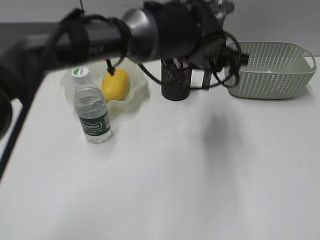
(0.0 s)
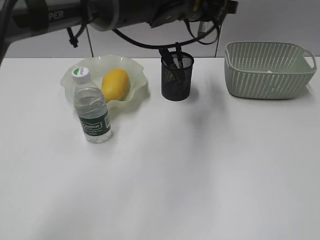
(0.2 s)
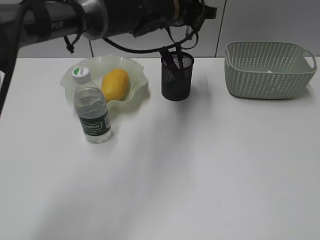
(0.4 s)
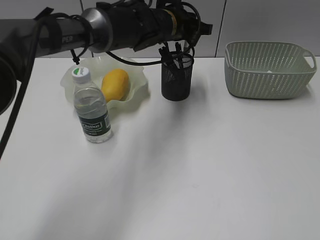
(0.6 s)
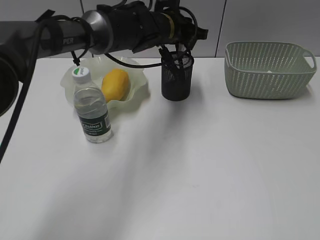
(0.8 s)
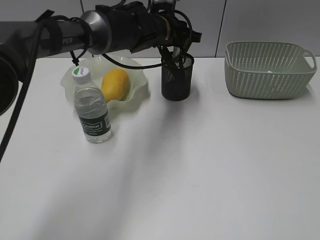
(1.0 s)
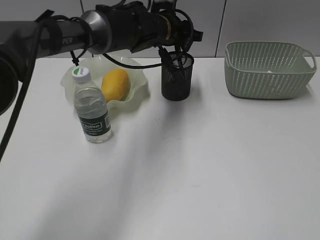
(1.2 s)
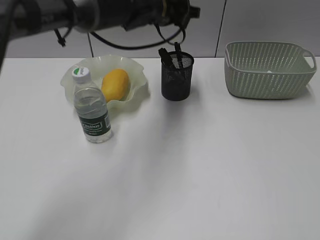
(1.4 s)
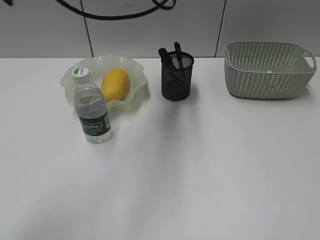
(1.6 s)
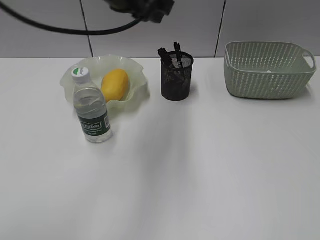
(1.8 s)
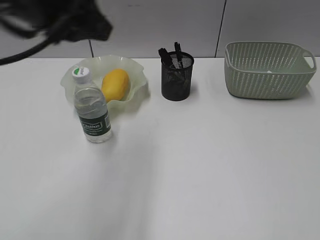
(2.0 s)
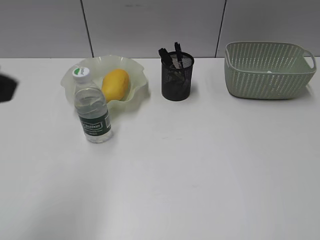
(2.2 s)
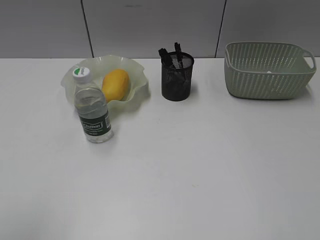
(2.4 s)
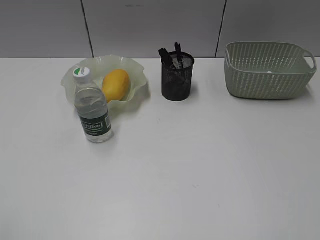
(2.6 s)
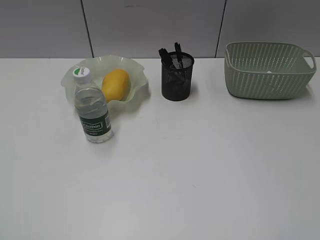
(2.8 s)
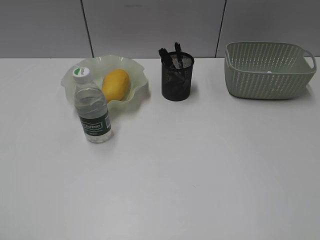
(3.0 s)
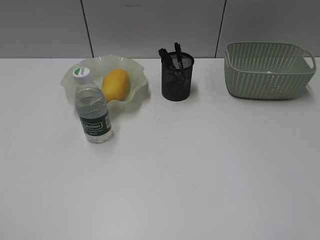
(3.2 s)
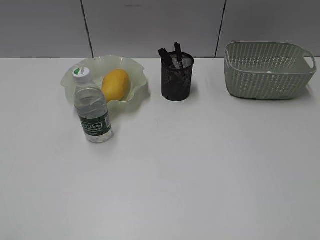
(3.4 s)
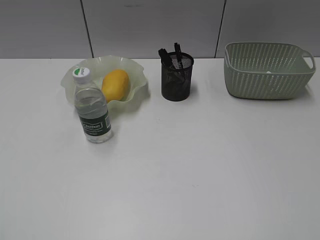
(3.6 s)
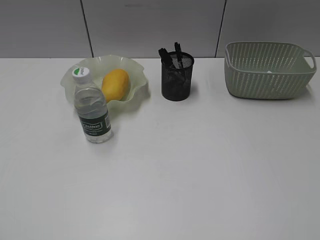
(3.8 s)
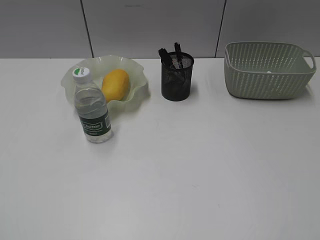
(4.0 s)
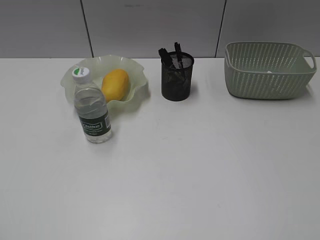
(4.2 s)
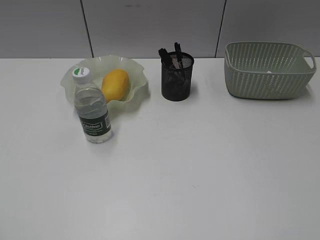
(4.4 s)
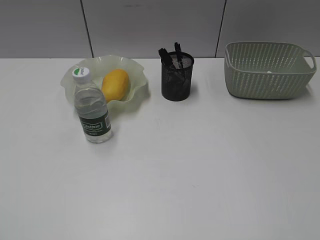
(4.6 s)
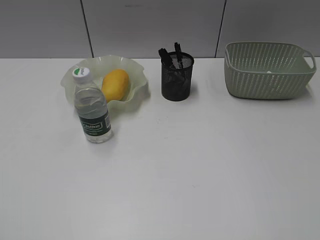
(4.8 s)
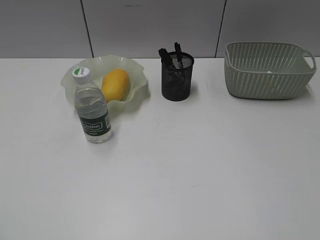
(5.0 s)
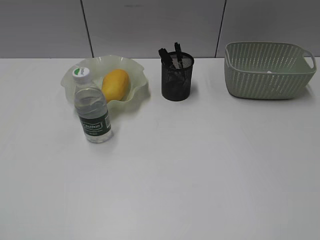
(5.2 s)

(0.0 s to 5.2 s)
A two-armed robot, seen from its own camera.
Step, 0.0 s - 1.2 s: Place the eraser in pen holder with left gripper.
0.0 s - 1.8 s: The left gripper travels to the left and upward by roughly 20 cm.
1.8 s - 3.4 s: The left gripper travels backward and to the left by roughly 40 cm.

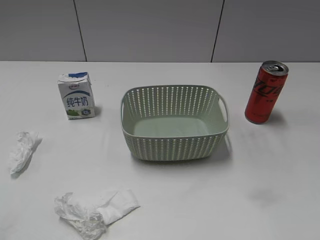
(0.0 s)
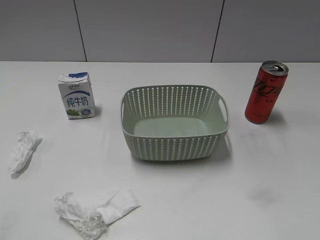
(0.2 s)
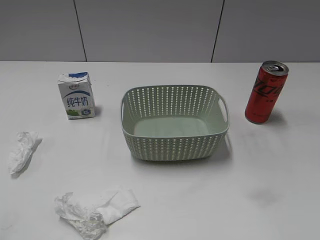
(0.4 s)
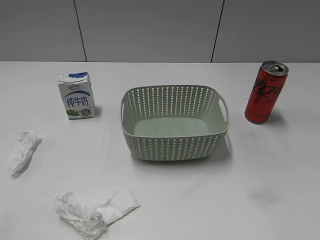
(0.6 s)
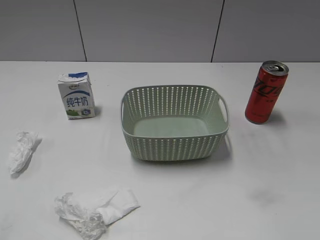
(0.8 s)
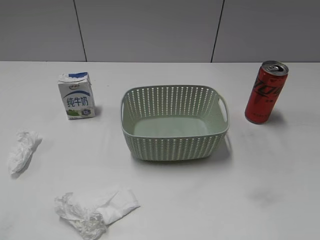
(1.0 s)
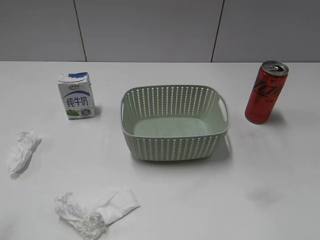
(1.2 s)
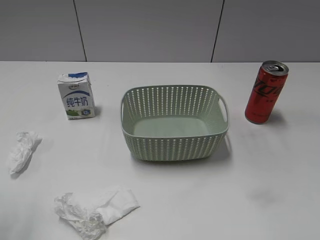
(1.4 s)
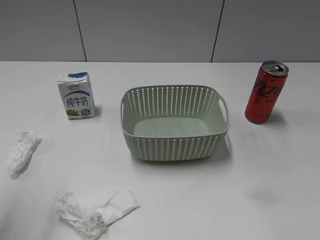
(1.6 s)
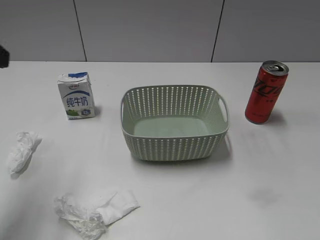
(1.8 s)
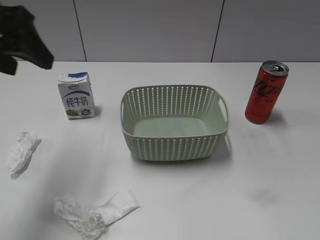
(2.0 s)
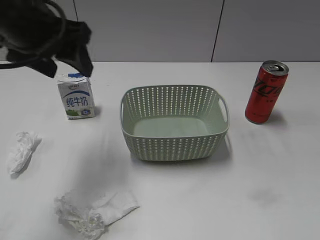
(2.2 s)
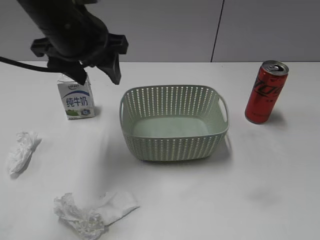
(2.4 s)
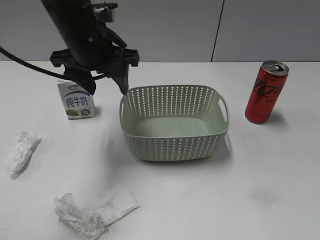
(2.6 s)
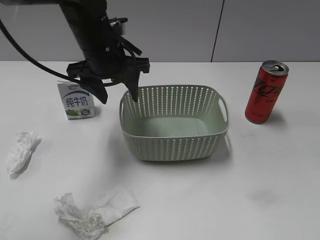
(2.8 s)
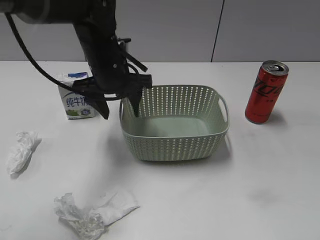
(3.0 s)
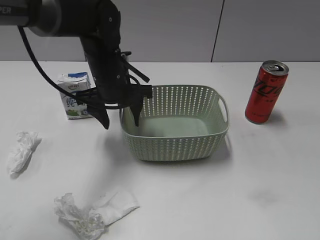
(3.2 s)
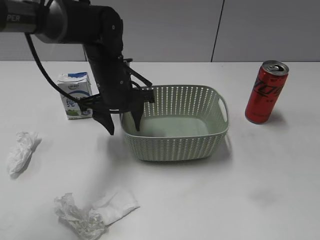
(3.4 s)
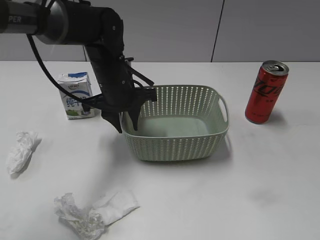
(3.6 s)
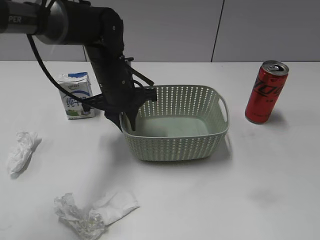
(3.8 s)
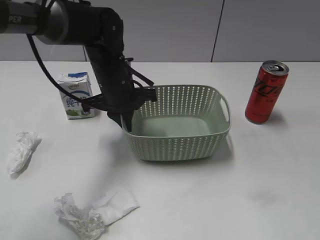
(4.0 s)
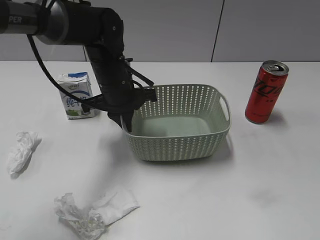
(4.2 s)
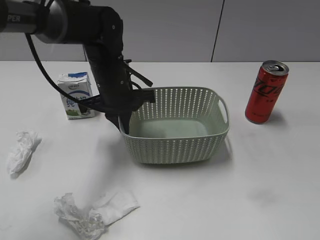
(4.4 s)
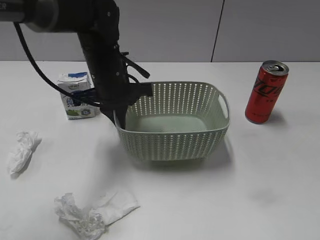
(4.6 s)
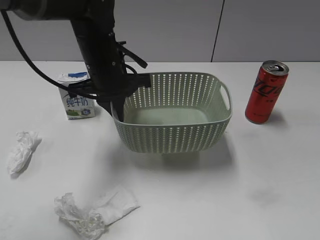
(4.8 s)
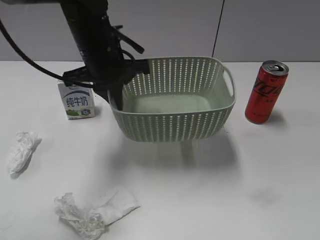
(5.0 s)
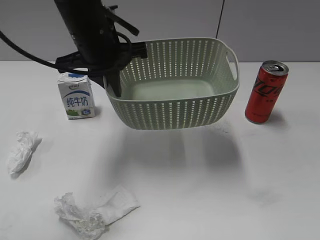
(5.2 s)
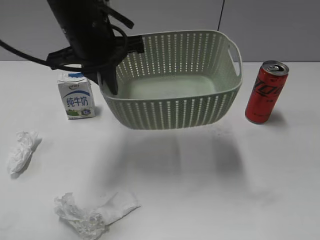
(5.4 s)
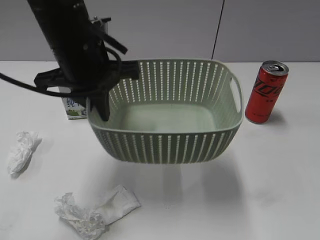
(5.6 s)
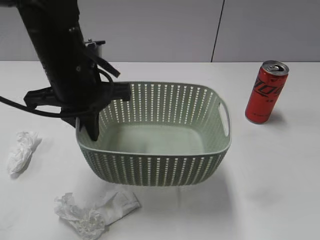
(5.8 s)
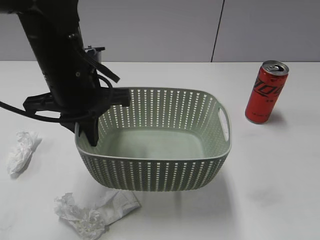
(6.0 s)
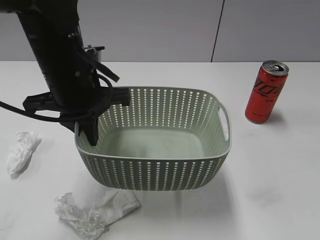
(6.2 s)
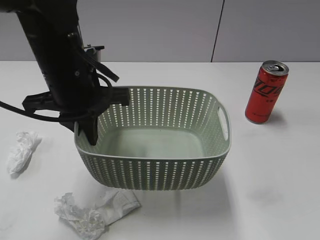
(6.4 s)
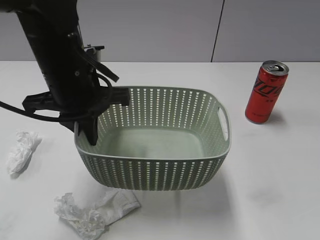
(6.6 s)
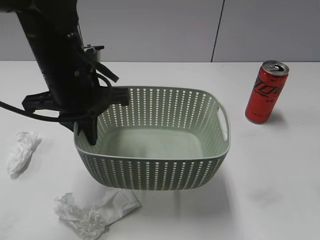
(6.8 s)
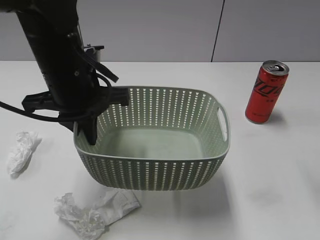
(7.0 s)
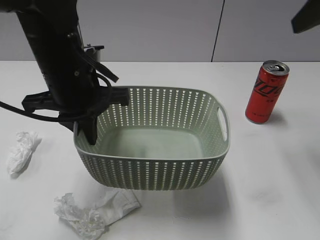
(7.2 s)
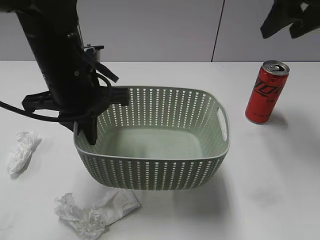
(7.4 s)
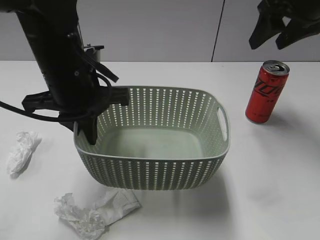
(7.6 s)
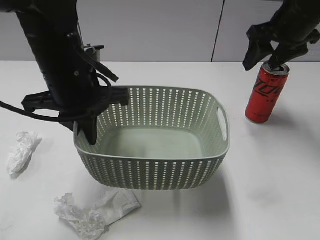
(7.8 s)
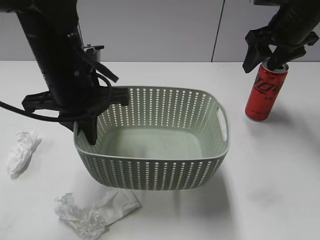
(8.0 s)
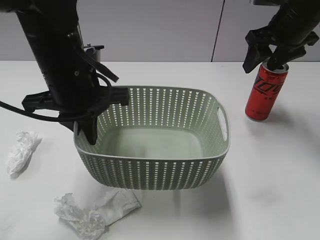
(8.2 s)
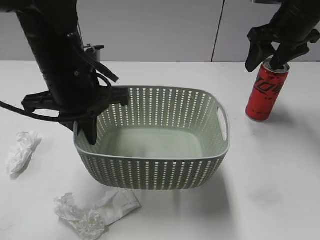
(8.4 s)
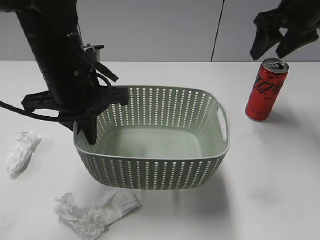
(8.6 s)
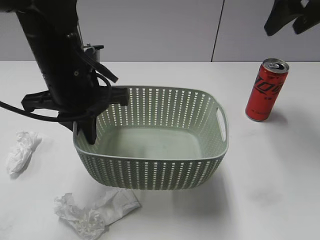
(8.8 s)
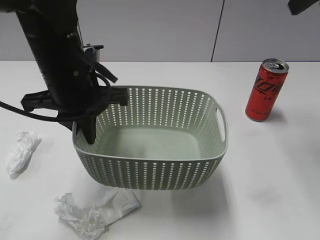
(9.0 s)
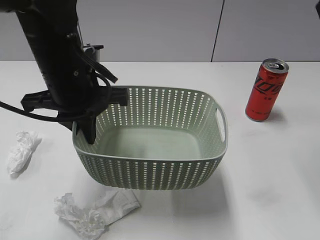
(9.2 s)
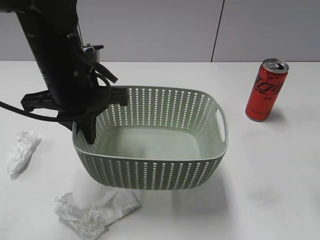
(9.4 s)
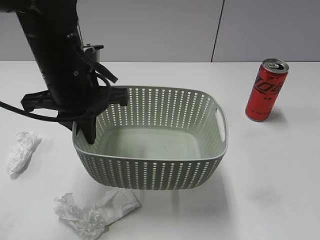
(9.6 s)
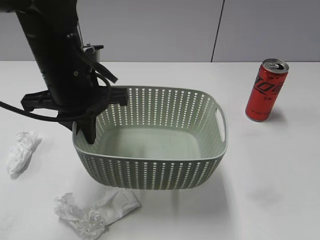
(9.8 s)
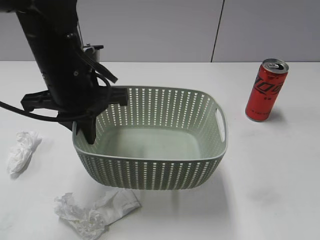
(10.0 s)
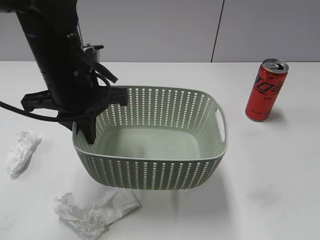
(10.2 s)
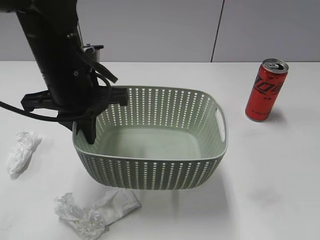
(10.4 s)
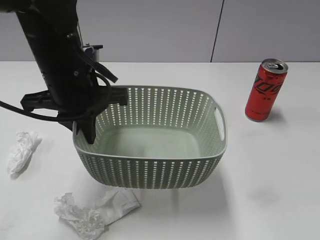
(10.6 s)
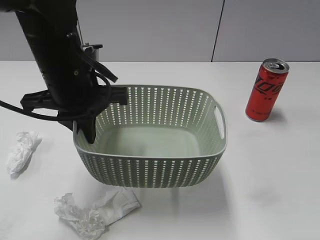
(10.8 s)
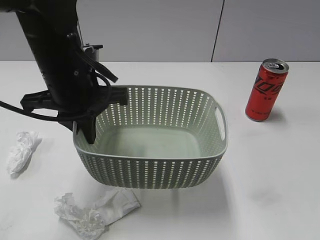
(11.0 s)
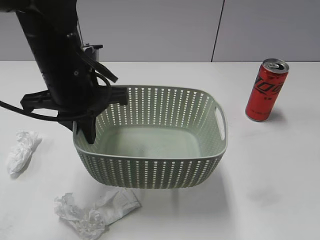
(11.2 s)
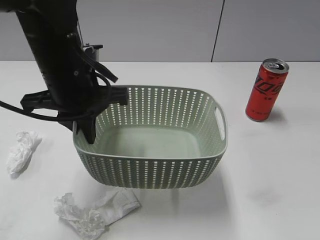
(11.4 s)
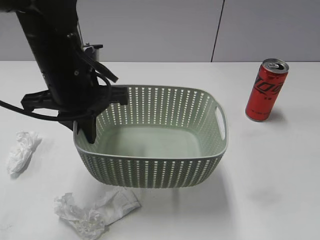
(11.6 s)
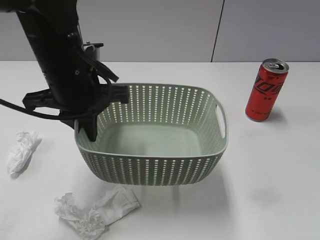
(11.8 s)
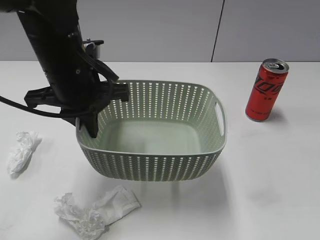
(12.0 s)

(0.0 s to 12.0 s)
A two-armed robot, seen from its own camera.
Step, 1.8 s - 4.0 s: Grasp the basket with left gripper.
Step, 4.2 s - 6.8 s: Lift the basket with left gripper.
1.6 s - 3.0 s: The left gripper goes roughly 30 cm forward, to the right and downward.
3.0 s - 4.4 s: The left gripper closes up.
4.4 s - 6.0 s: The left gripper heads backward and upward, covering approximately 15 cm.
6.0 s - 7.6 s: The right gripper shifts some 40 cm forward, and closes.
7.6 s - 9.0 s: The right gripper goes approximately 10 cm upward and backward.
9.0 s - 10.4 s: The right gripper heads backward, covering about 30 cm.
10.4 s - 12.0 s: The right gripper is displaced forward and upward by roughly 5 cm, and opens up.

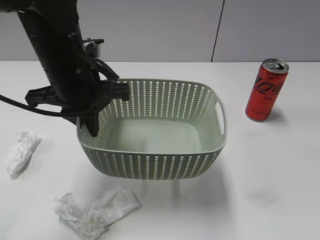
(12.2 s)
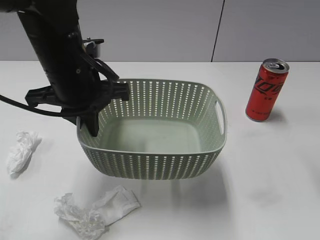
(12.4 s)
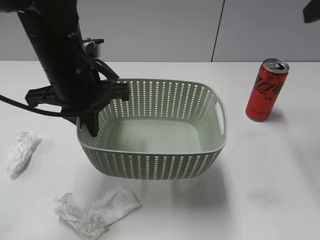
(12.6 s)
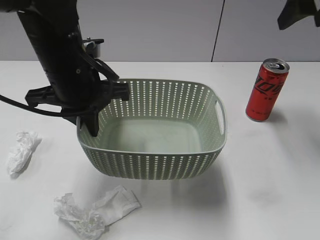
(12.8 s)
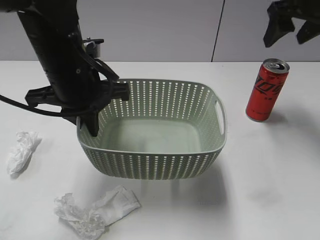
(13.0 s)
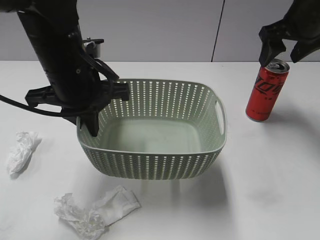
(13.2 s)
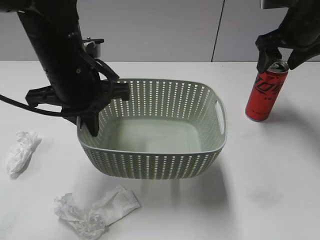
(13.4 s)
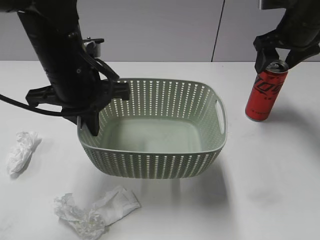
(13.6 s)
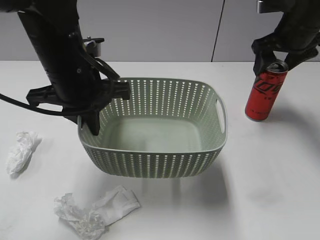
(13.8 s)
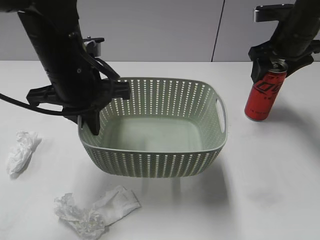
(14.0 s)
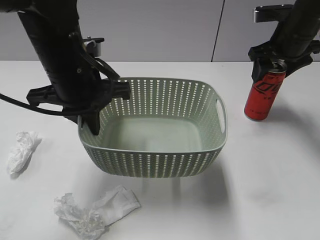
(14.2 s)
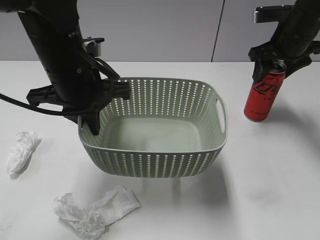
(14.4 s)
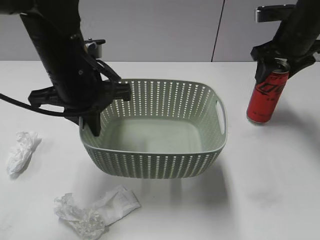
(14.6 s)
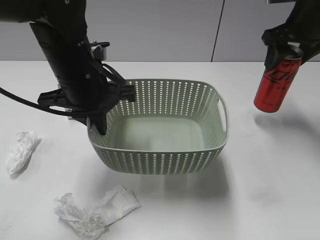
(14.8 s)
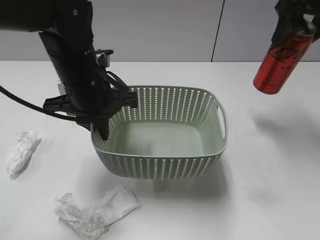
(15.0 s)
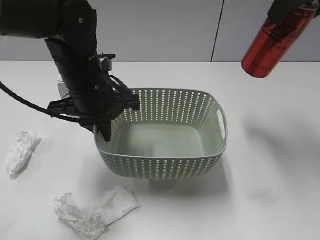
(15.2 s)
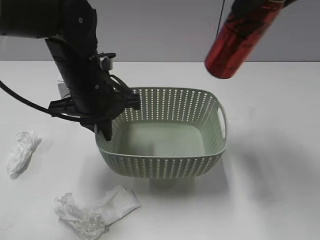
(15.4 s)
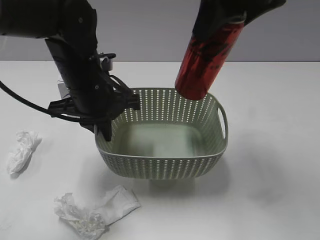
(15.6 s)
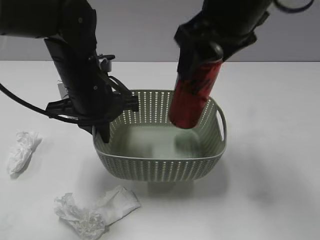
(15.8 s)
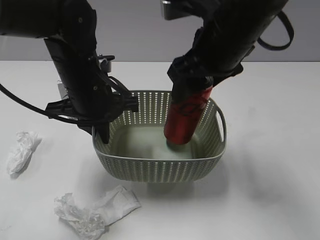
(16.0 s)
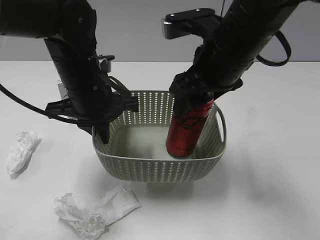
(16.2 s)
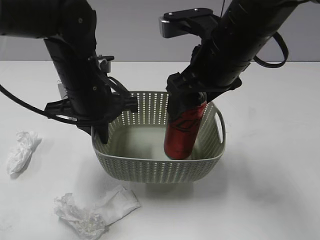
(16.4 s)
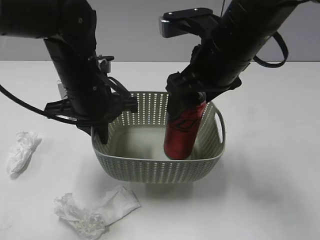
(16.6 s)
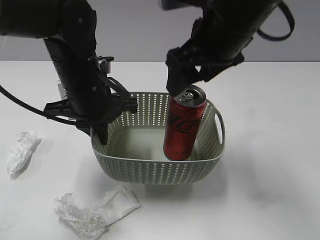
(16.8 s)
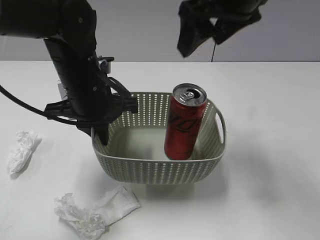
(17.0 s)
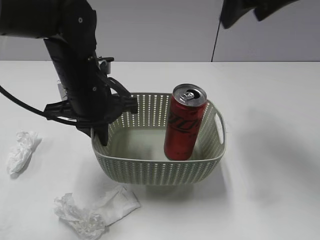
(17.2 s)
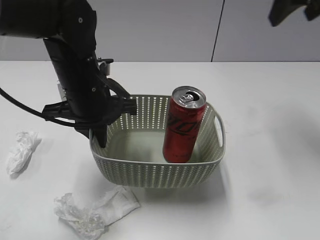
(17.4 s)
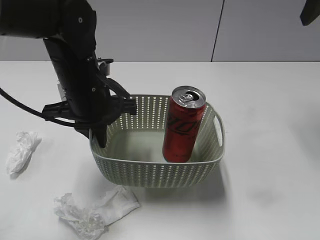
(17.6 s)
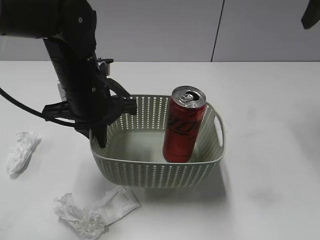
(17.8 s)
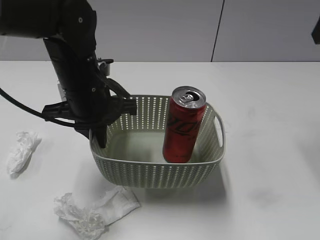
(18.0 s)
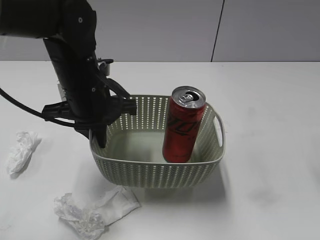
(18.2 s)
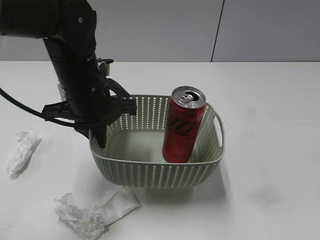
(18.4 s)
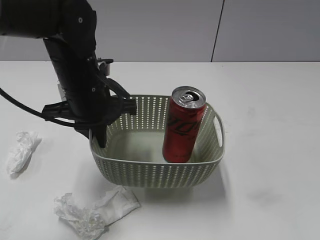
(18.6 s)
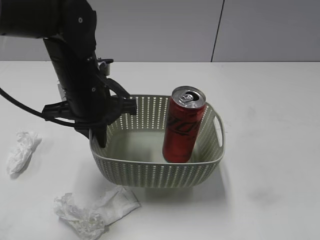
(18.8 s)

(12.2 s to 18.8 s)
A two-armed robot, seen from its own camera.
Step, 12.2 s - 14.4 s: Grasp the cola can with right gripper.
Step, 14.6 s - 16.6 s: Place the cola can in the basket with right gripper.
12.2 s - 13.8 s: The right gripper moves forward and downward, about 30 cm.
13.8 s - 15.4 s: The right gripper heads upward, backward and to the left, covering about 20 cm, and closes.
15.4 s - 17.2 s: The right gripper reaches some 15 cm downward, then returns, and opens up.
17.2 s - 18.8 s: The right gripper travels backward, to the right and downward by some 30 cm.
